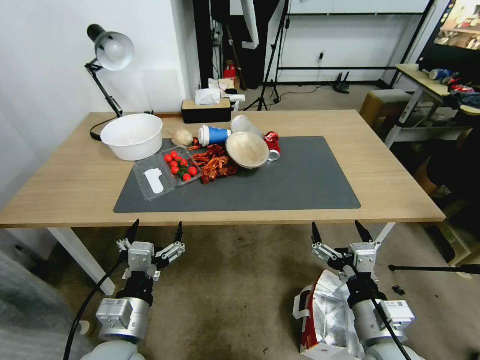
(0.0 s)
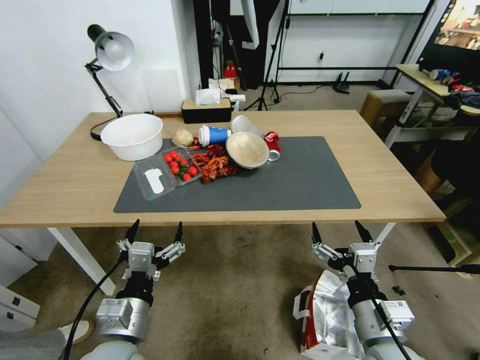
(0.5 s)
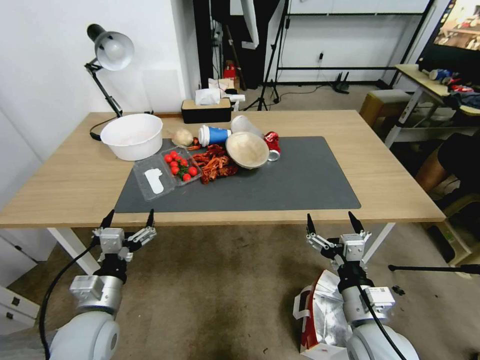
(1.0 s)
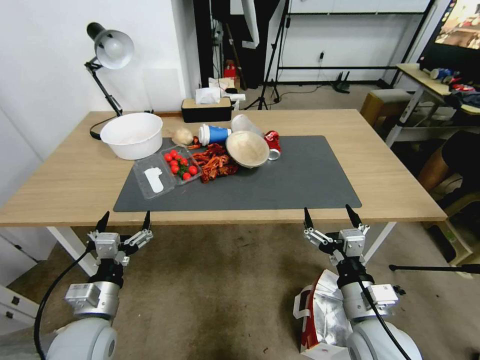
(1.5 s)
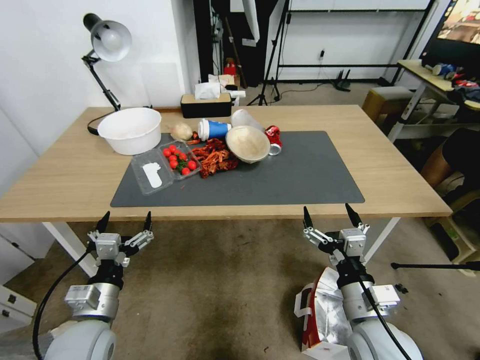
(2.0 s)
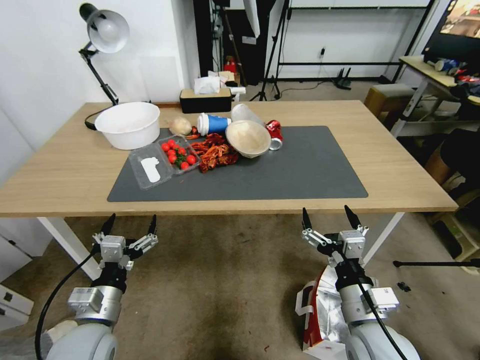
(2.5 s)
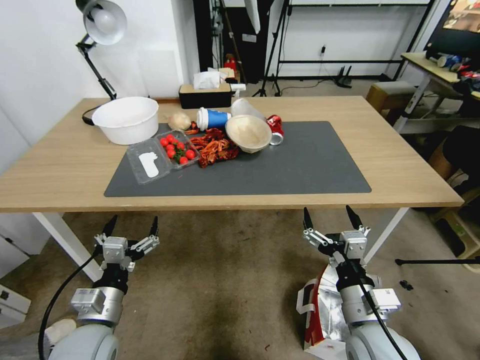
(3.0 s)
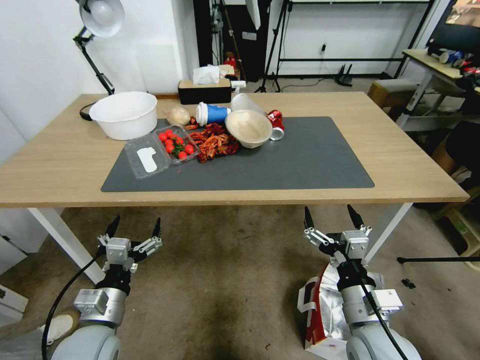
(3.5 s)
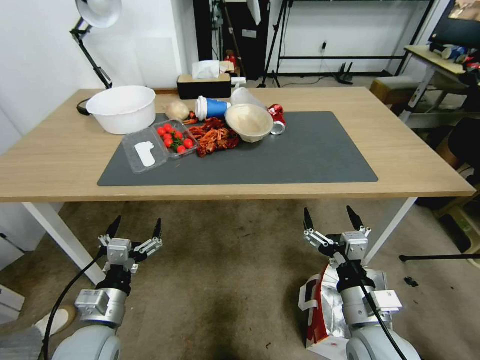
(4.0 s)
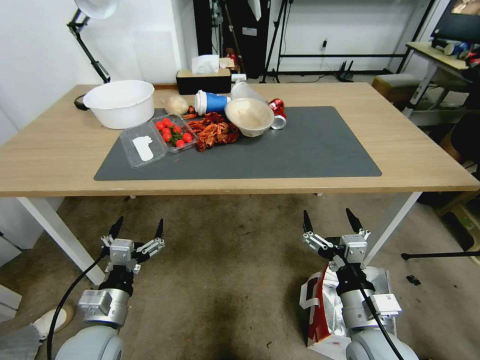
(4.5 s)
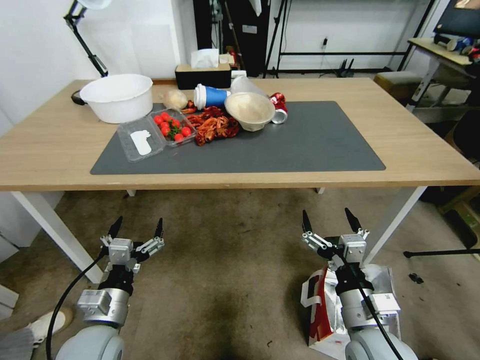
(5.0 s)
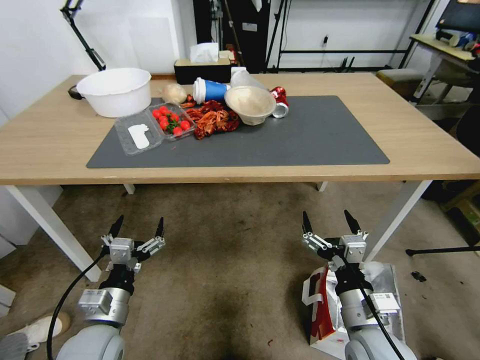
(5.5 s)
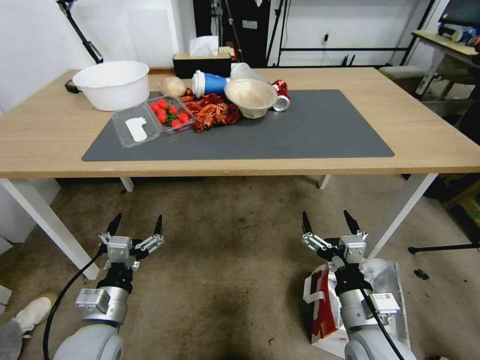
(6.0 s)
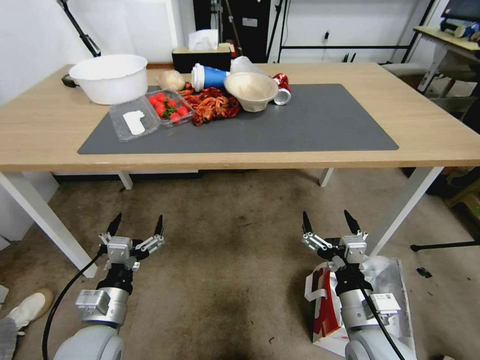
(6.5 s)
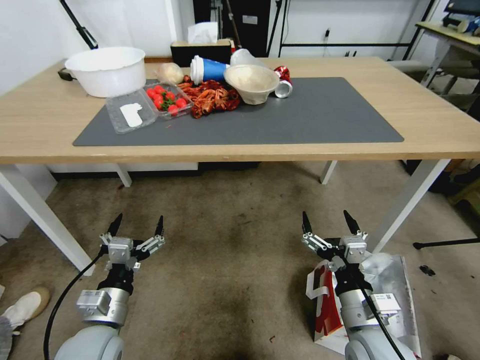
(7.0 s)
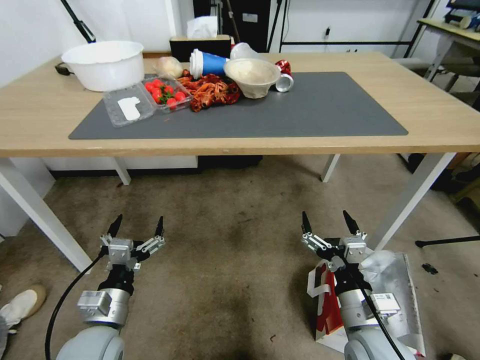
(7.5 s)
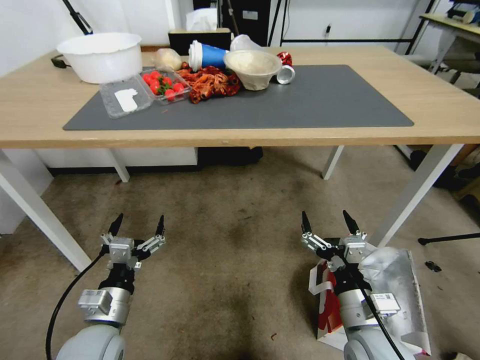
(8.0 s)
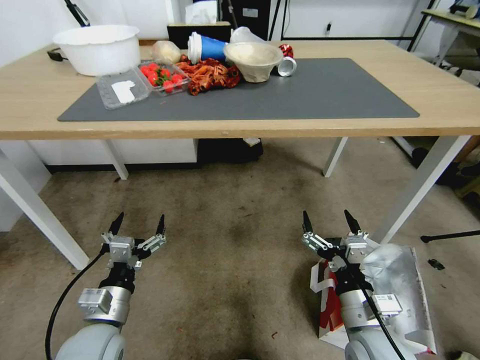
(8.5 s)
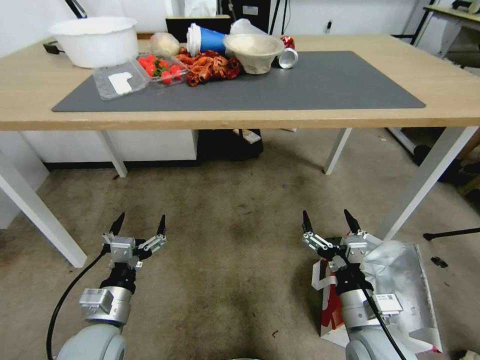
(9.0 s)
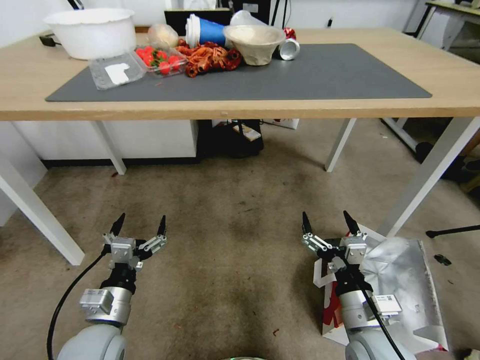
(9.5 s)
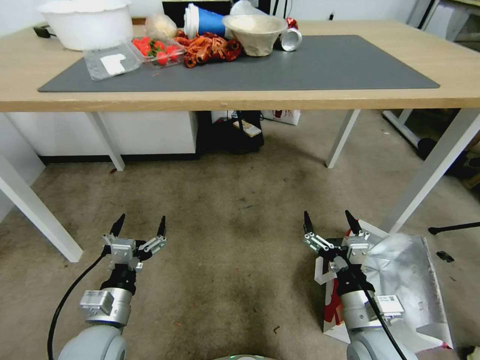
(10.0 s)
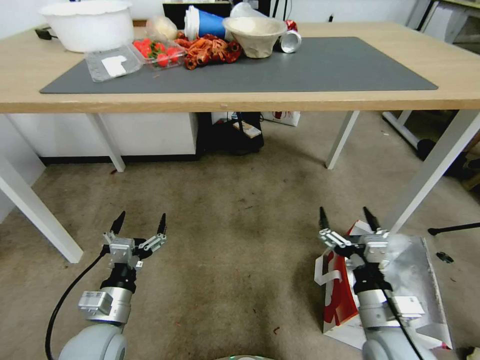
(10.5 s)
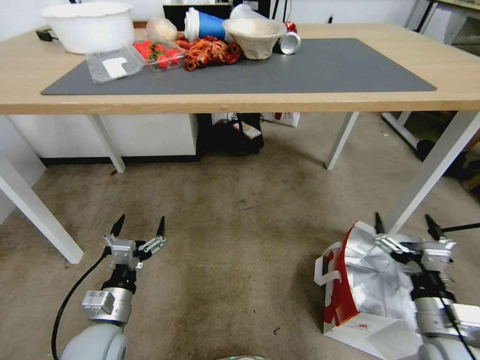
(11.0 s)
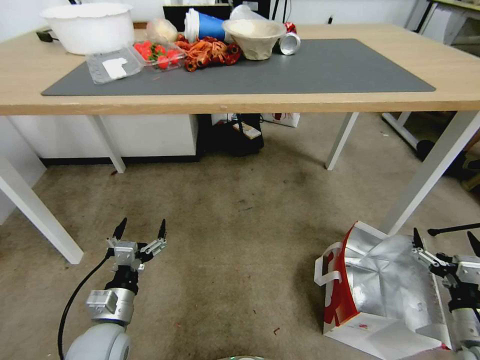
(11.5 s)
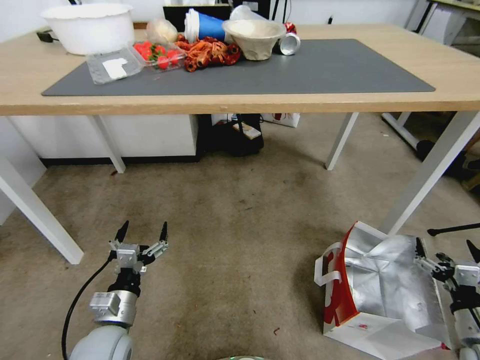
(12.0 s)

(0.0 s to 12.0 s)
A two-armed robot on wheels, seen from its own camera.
Task of the whole recording: Pick up the food delivery bag from the floor and place it on the table.
10.0 s - 12.0 s: The right gripper heads to the right, covering some 25 cm.

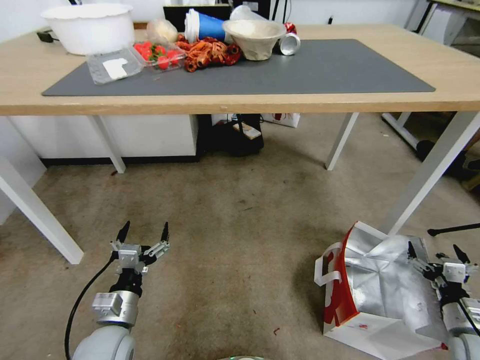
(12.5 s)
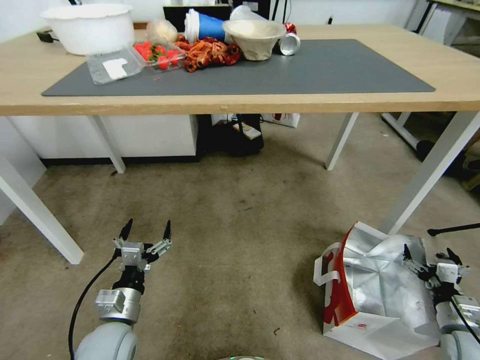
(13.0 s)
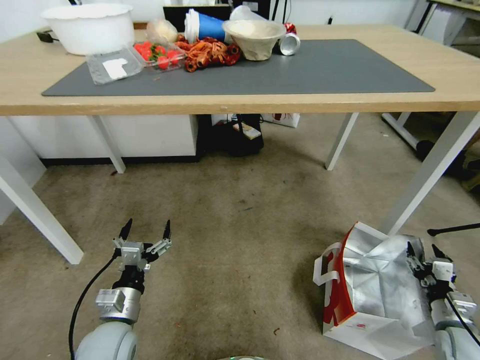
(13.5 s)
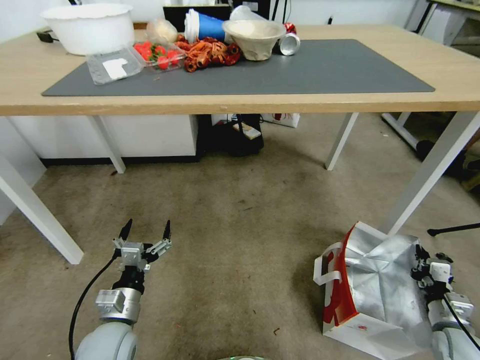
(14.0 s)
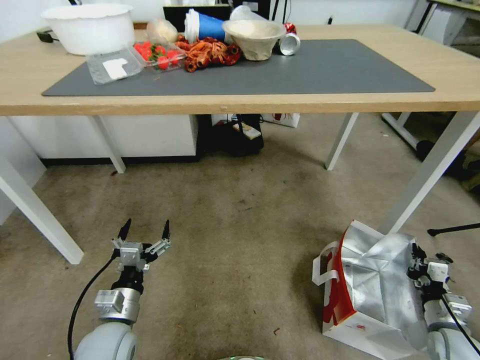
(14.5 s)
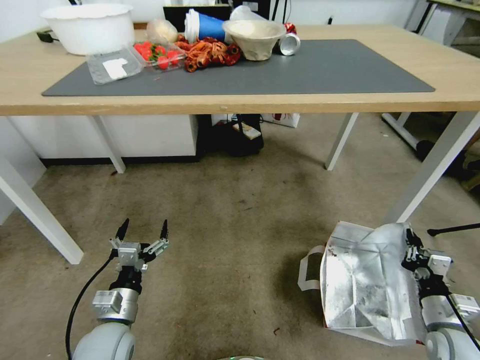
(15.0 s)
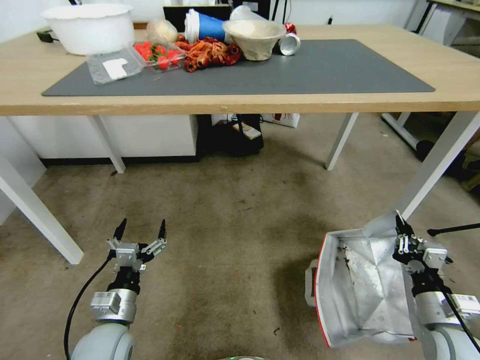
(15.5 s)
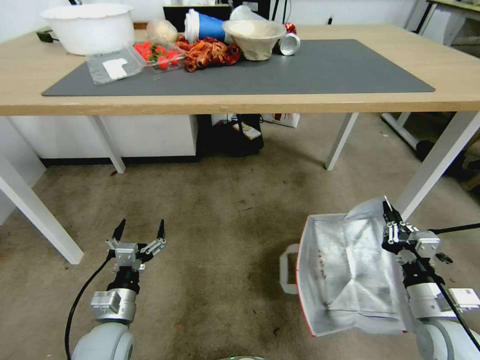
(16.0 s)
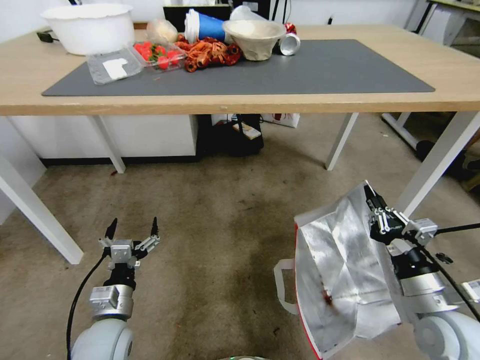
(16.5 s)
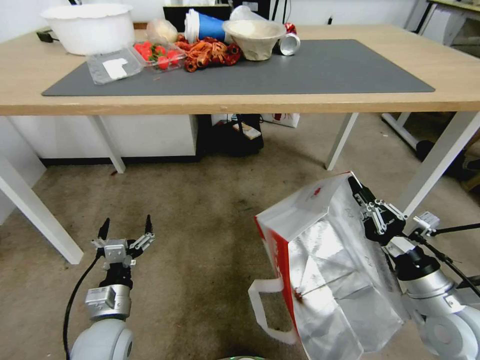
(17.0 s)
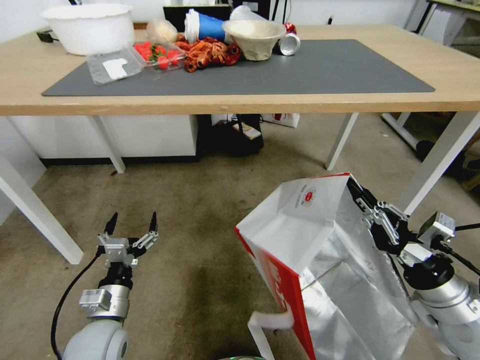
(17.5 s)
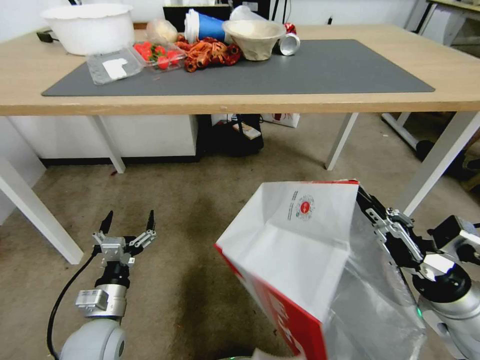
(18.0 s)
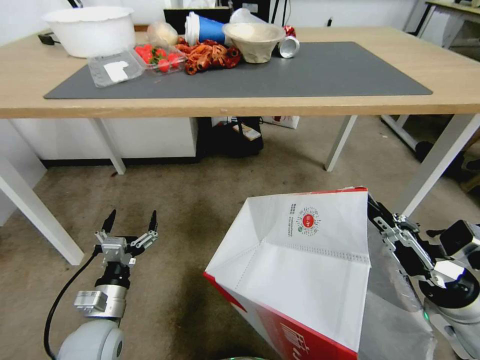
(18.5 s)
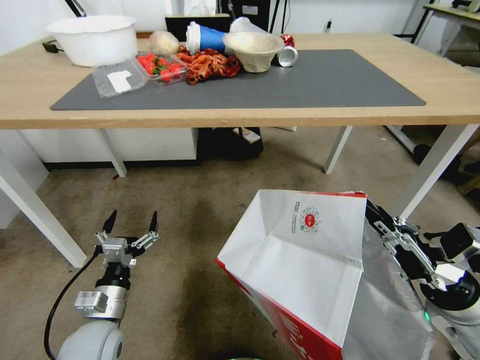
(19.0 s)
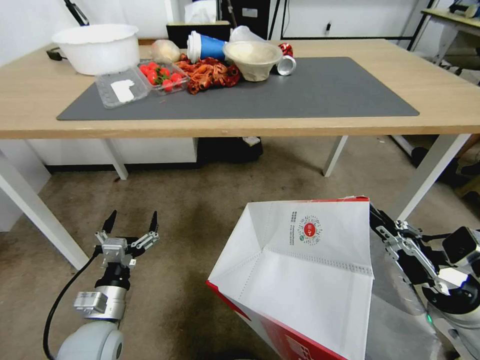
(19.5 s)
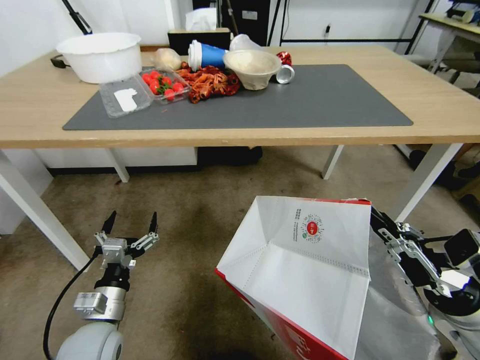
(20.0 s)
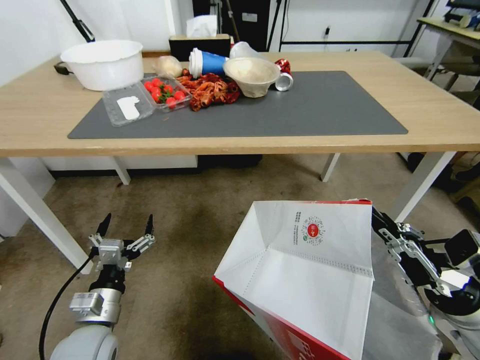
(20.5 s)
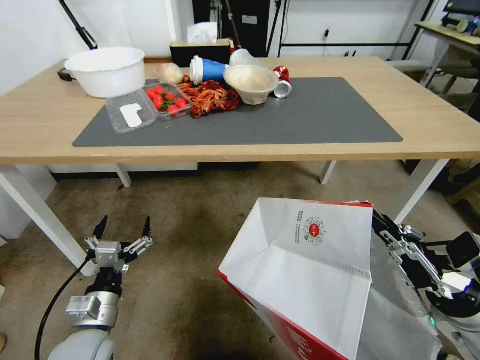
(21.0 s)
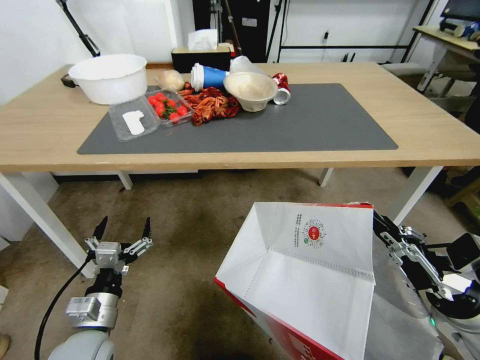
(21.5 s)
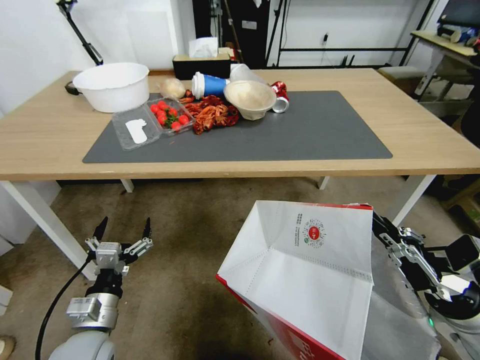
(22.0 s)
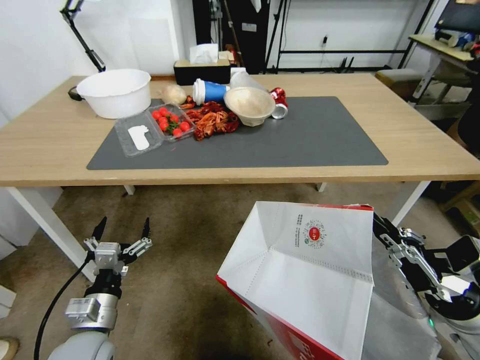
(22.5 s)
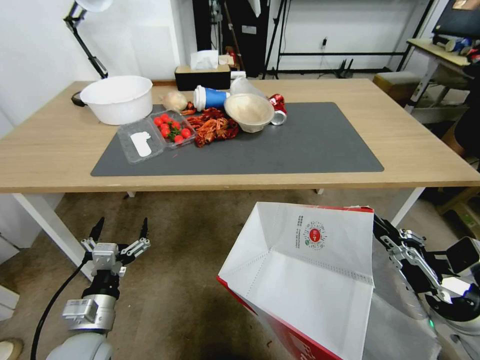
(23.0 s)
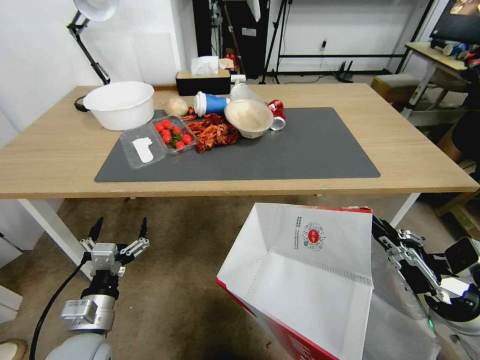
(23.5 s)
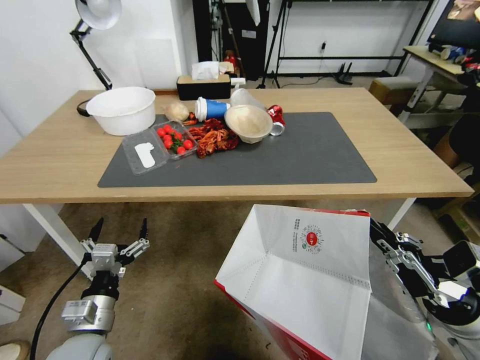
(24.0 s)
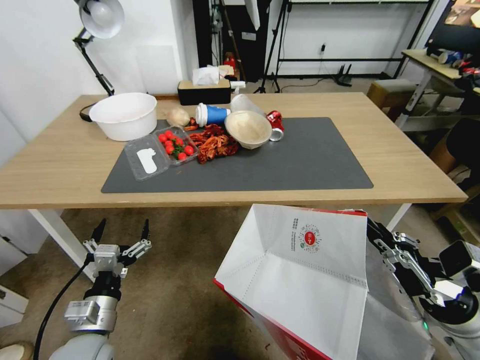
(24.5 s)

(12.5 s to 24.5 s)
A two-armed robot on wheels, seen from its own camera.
Task of the whole recording: Pick up the food delivery bag from the floor and place it on the table.
12.5 s - 14.5 s: The right gripper closes its fingers.
14.5 s - 16.5 s: The right gripper moves upward and to the left, about 20 cm.
16.5 s - 18.5 s: The right gripper shifts approximately 5 cm upward.

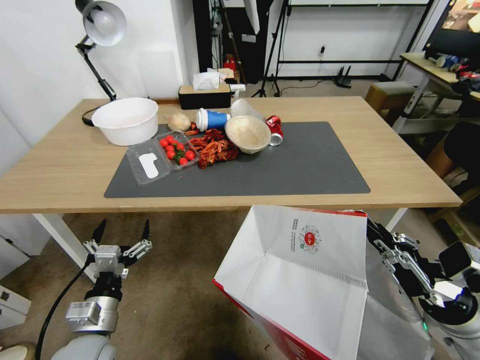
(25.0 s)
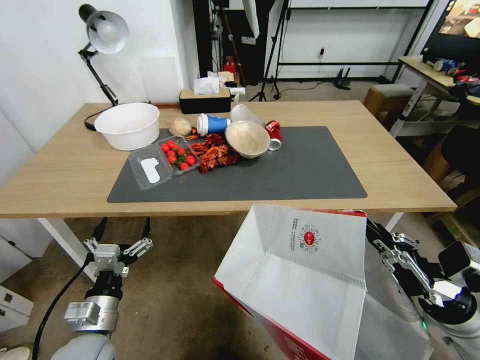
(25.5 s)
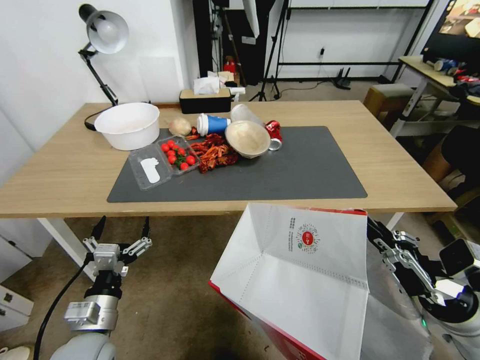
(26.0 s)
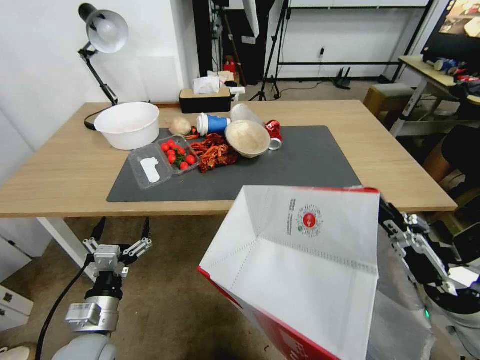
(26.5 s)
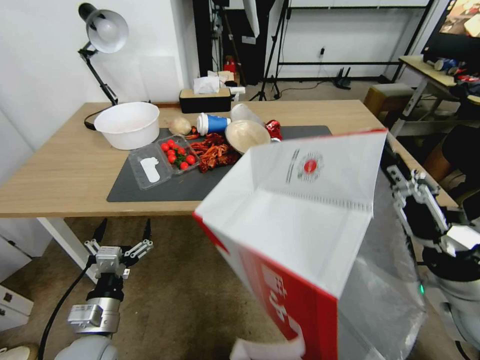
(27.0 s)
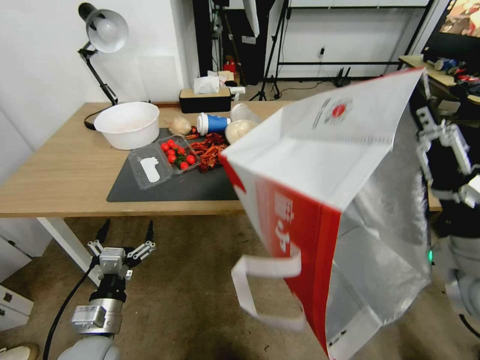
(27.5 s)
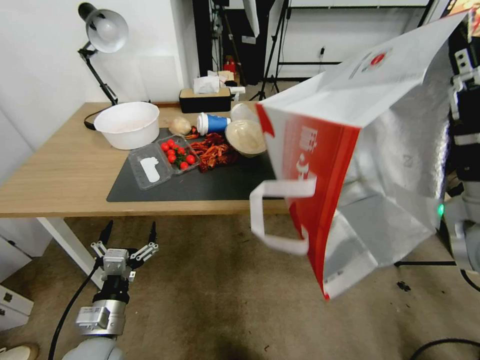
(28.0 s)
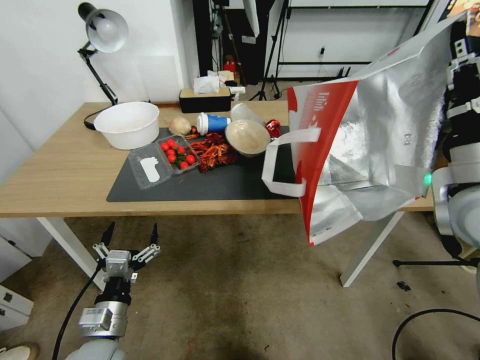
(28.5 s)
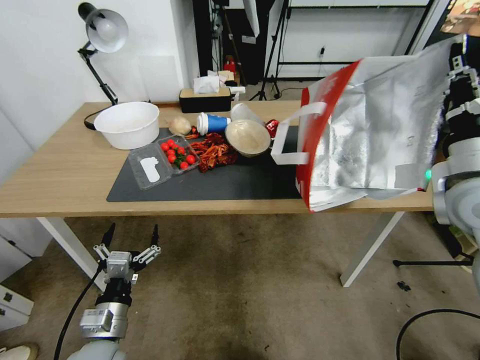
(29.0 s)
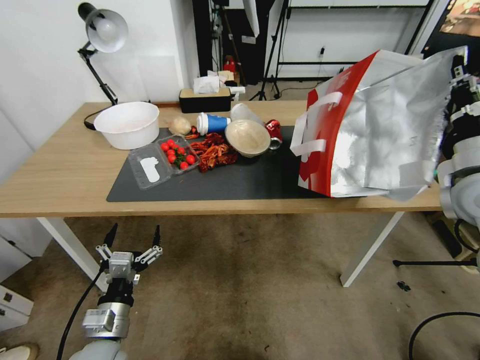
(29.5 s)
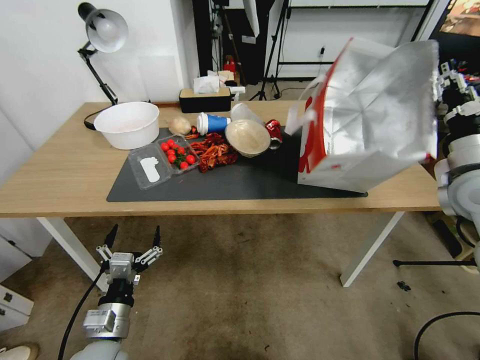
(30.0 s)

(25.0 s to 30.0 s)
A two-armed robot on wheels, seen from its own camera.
Task of the whole recording: Pick up the food delivery bag from the floor and place it on the table.
25.0 s - 27.5 s: The right gripper is displaced upward and to the left by some 15 cm.
27.5 s - 30.0 s: The right gripper heads forward and to the right, covering approximately 15 cm, and opens up.
